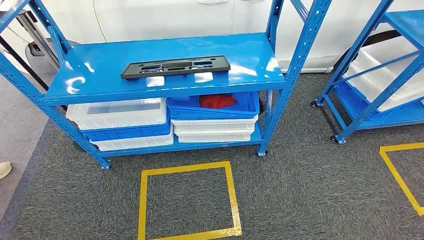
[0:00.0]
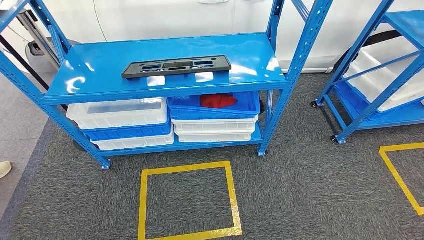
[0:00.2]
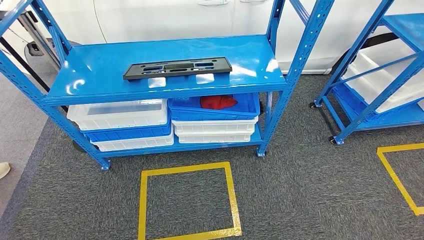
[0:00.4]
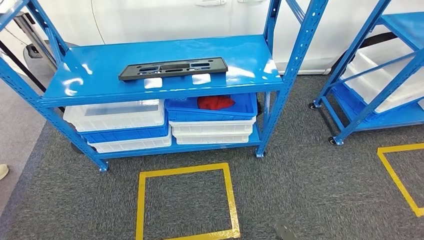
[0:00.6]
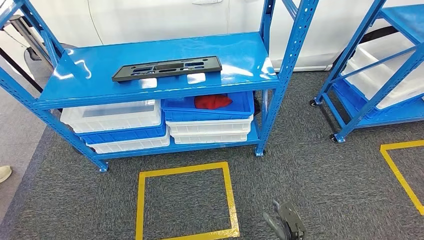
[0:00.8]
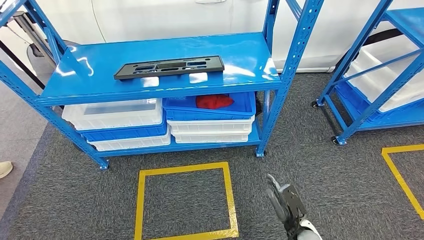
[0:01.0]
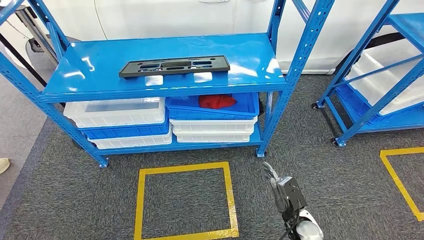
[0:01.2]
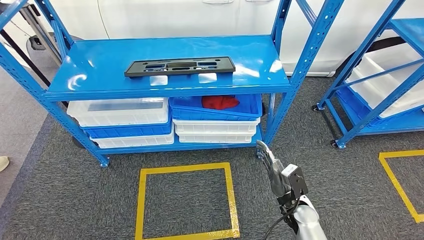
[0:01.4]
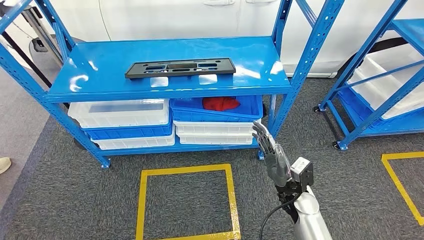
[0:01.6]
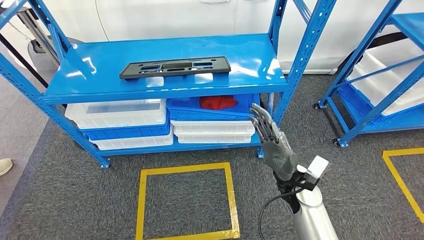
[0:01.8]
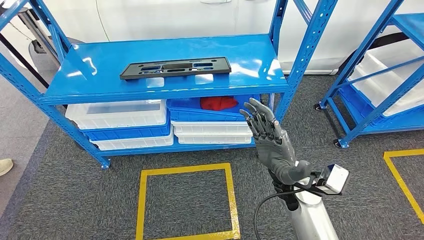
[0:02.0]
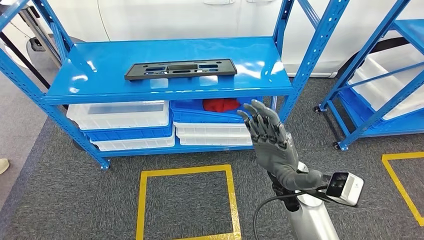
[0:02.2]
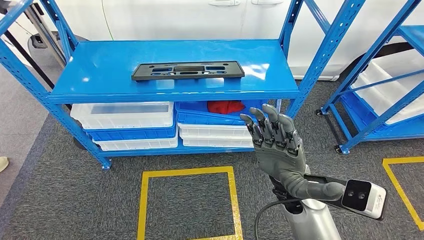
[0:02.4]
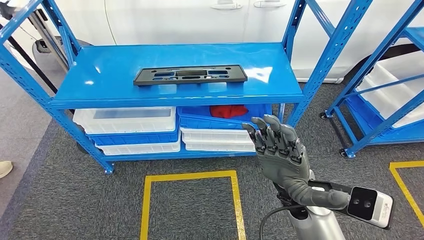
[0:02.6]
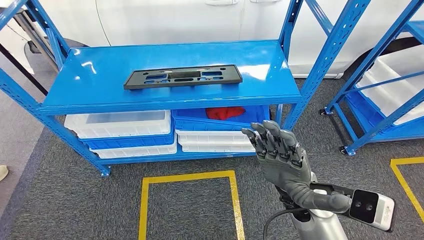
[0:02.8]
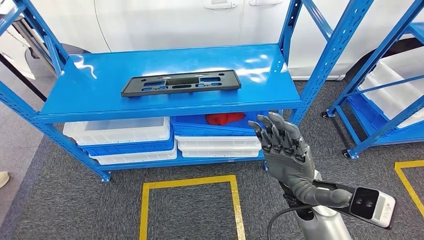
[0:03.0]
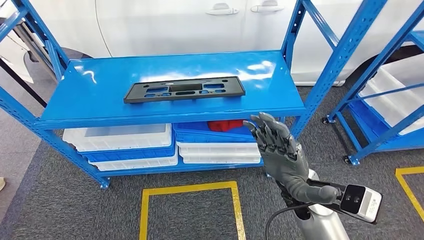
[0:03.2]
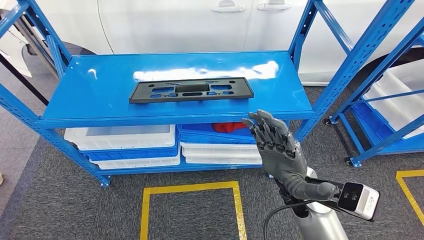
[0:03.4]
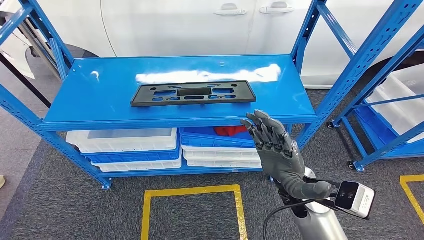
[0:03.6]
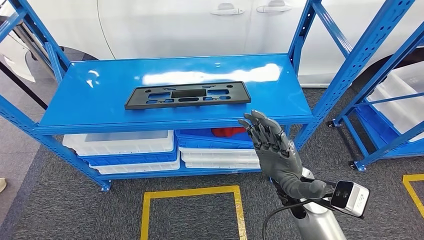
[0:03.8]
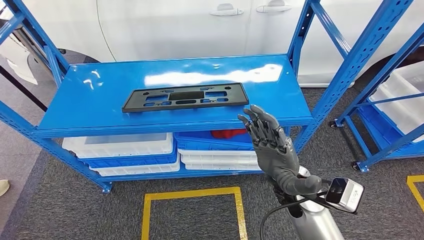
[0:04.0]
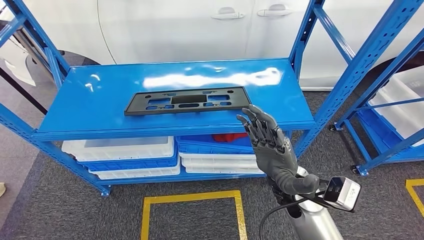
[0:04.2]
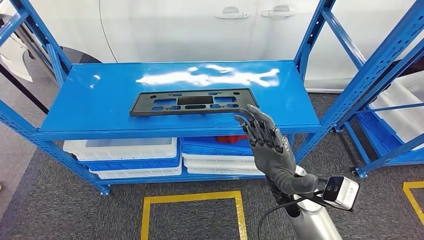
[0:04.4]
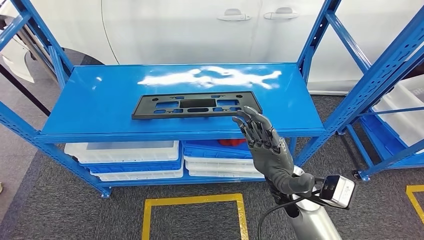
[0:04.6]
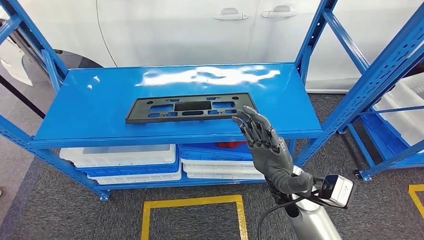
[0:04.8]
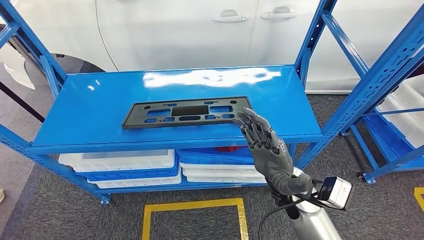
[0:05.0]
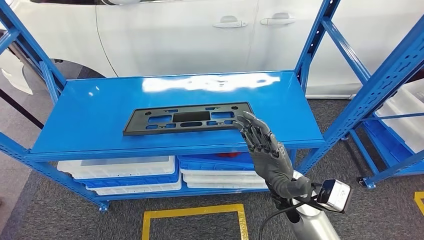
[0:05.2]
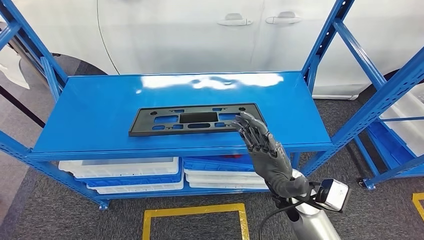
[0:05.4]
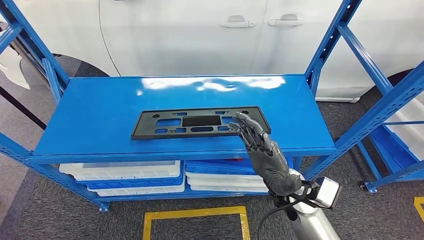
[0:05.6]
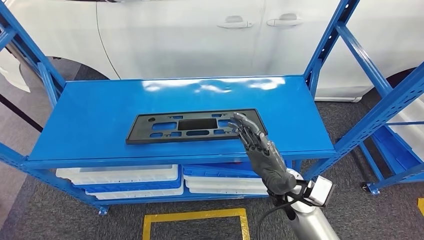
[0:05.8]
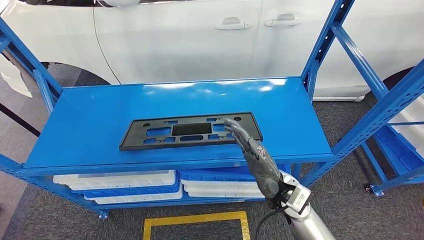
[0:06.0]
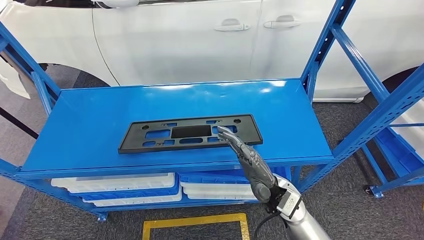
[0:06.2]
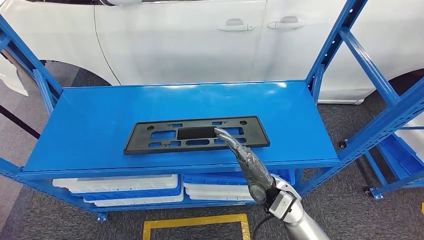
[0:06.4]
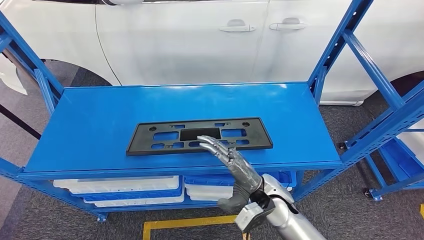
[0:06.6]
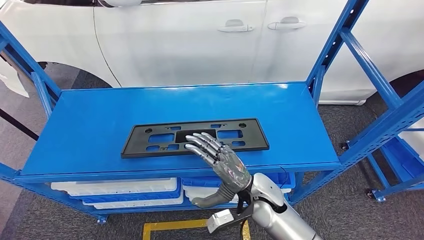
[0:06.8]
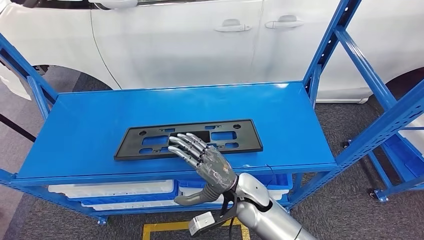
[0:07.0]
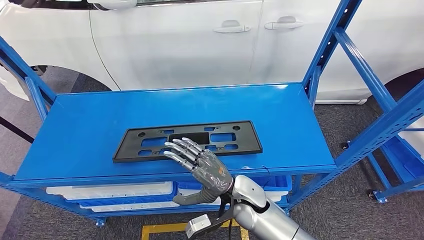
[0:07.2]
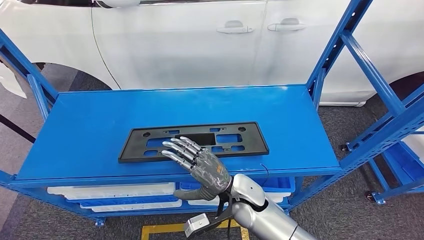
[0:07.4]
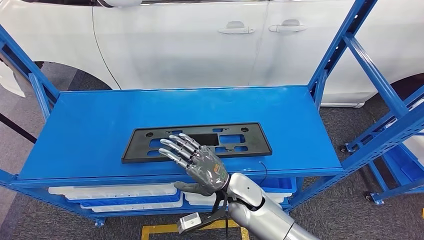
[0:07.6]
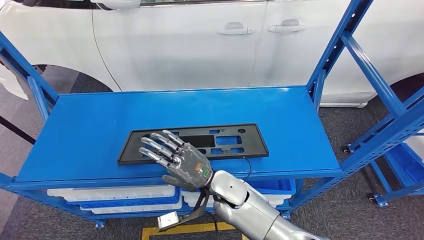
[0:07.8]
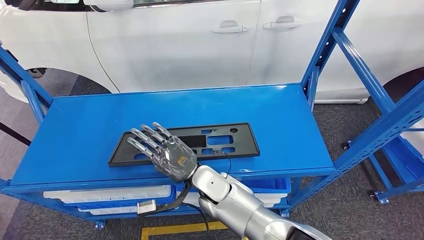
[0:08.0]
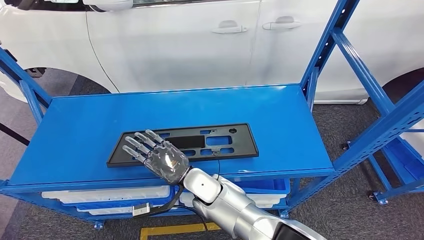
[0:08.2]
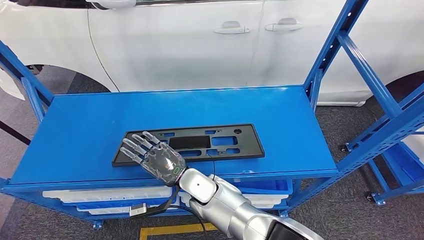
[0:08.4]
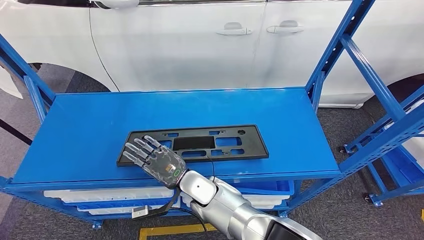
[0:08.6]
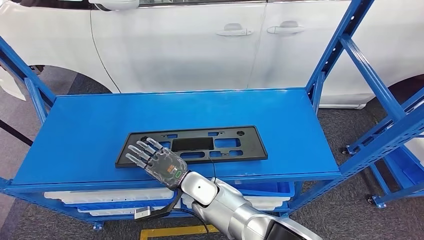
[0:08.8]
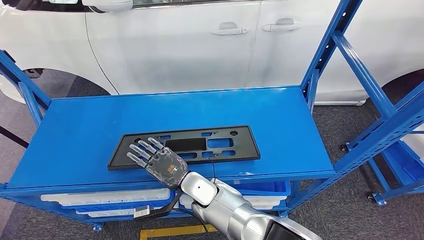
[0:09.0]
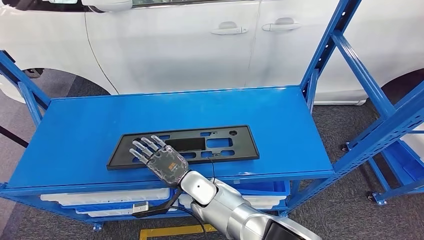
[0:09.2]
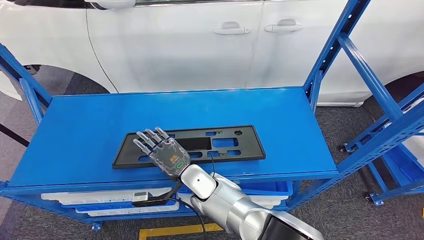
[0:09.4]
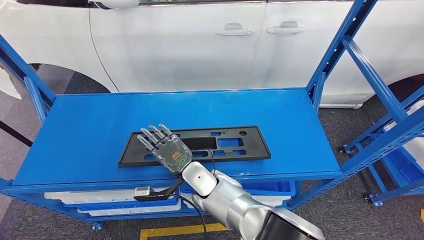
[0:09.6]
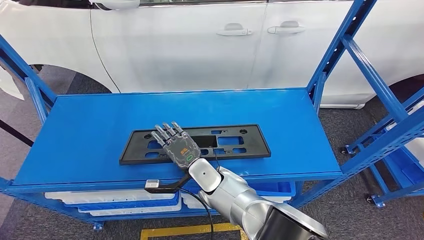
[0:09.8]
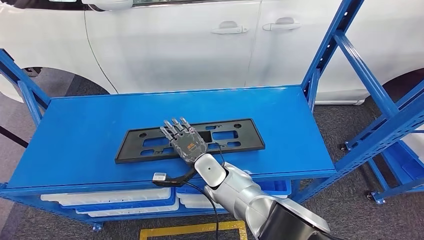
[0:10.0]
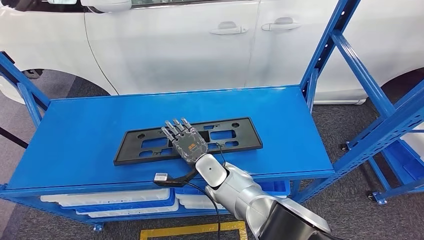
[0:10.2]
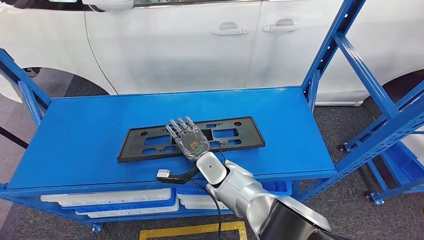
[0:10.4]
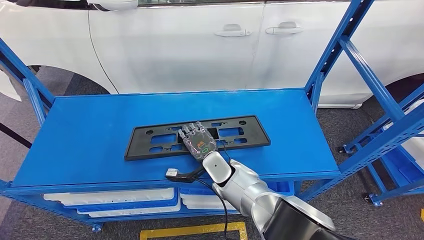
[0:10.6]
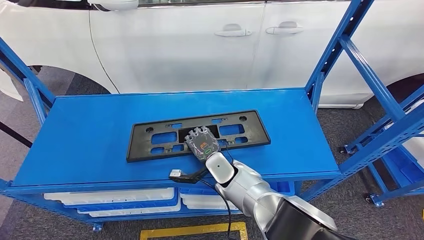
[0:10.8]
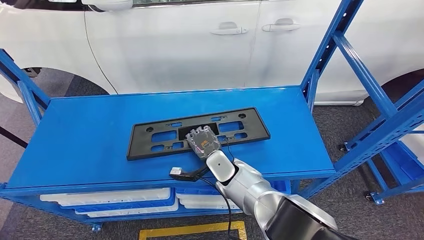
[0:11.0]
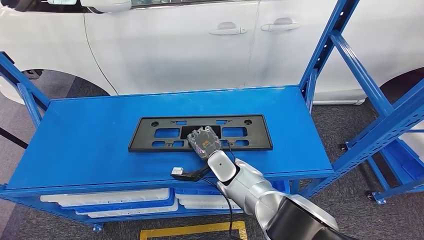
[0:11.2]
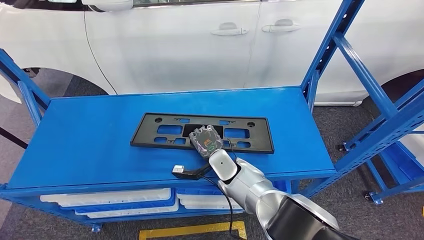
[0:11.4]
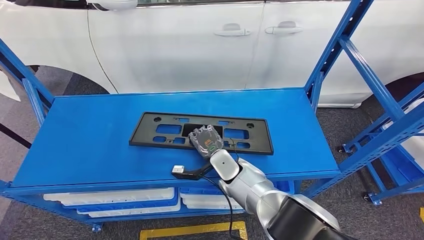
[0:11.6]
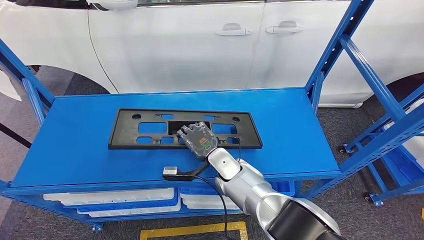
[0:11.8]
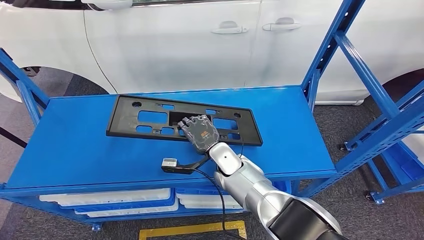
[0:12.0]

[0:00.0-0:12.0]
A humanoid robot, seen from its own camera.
0:09.0 to 0:10.4: The right hand changes place by approximately 5 cm.
0:10.4 to 0:12.0: There are only small adjustments of the hands.

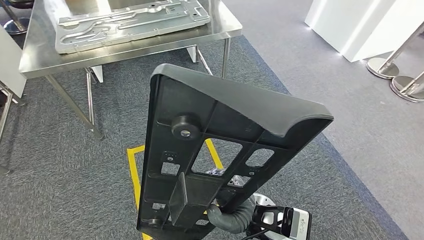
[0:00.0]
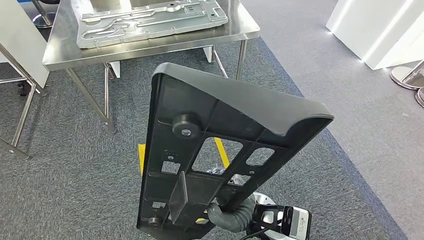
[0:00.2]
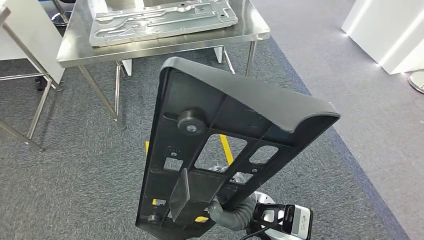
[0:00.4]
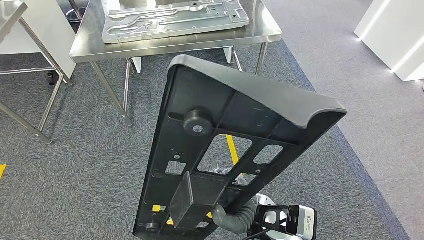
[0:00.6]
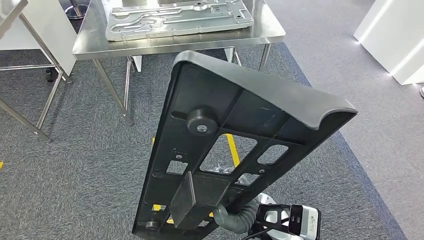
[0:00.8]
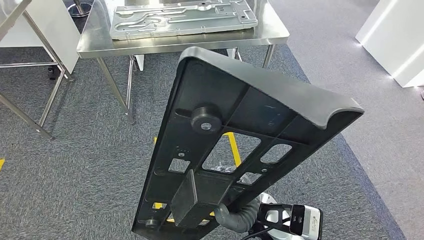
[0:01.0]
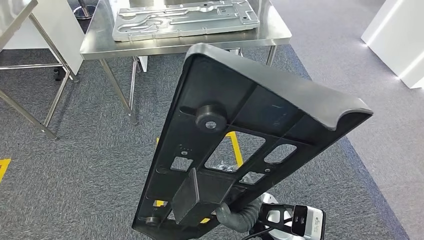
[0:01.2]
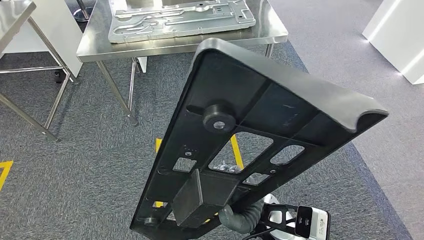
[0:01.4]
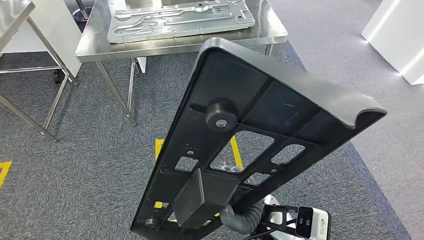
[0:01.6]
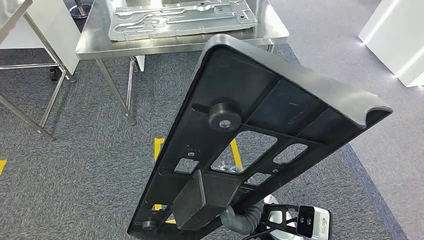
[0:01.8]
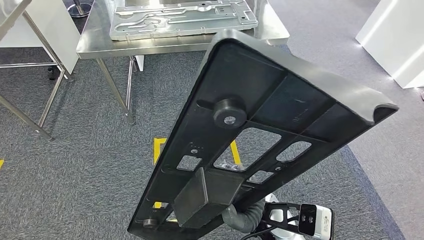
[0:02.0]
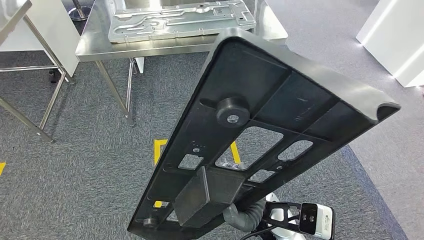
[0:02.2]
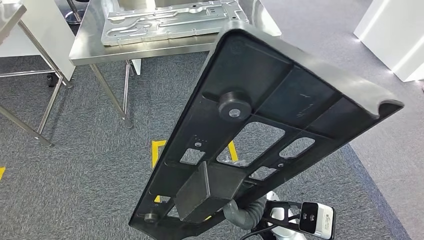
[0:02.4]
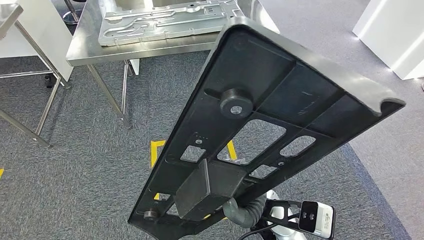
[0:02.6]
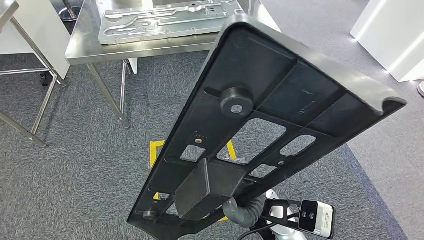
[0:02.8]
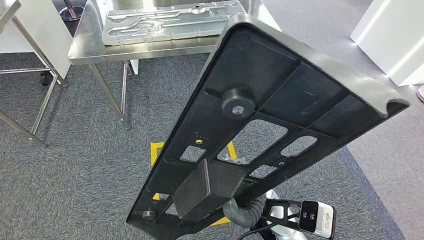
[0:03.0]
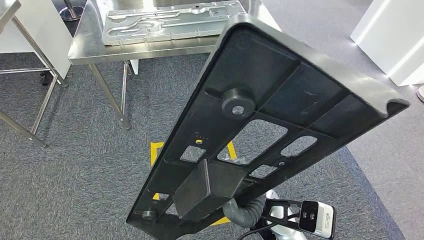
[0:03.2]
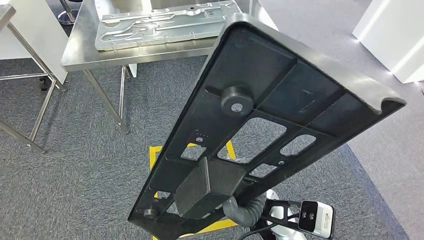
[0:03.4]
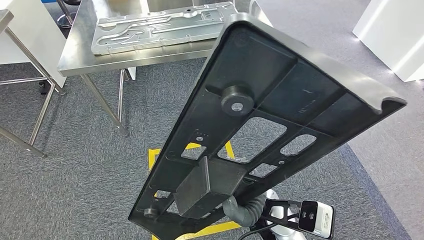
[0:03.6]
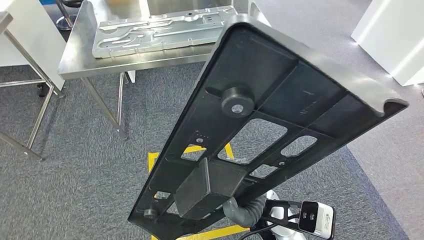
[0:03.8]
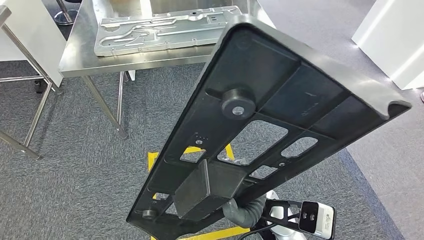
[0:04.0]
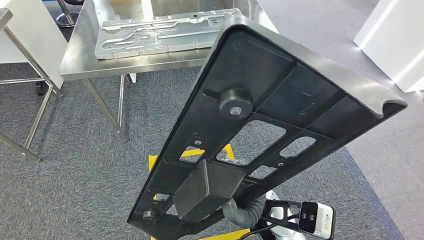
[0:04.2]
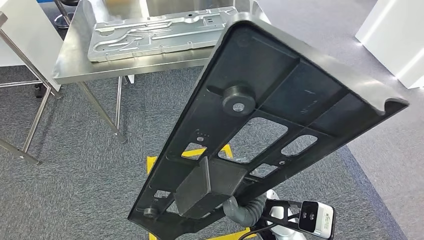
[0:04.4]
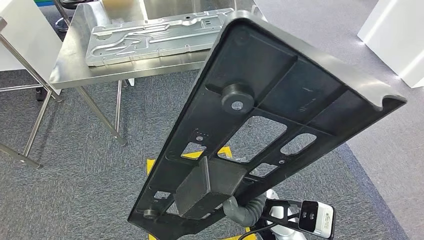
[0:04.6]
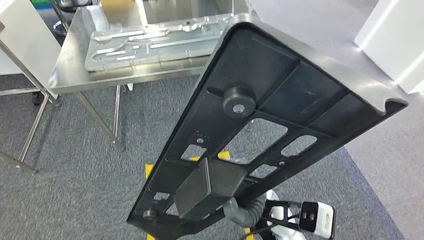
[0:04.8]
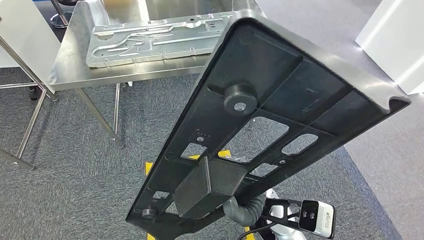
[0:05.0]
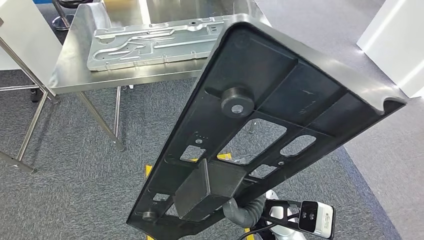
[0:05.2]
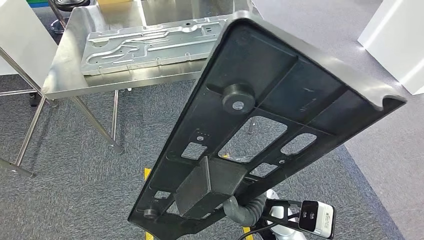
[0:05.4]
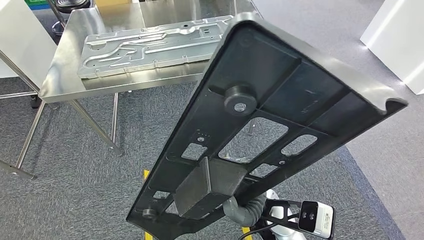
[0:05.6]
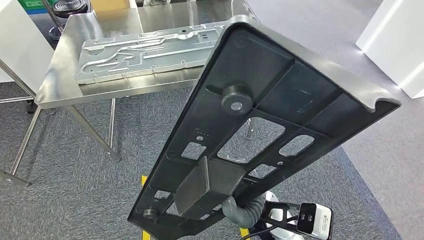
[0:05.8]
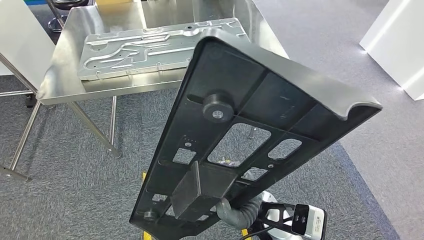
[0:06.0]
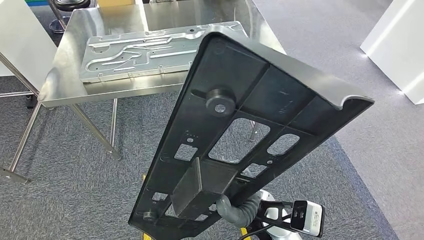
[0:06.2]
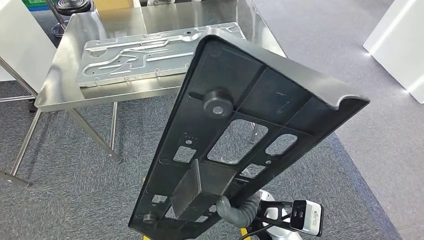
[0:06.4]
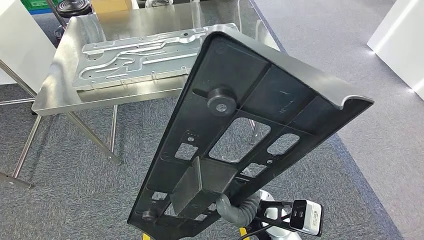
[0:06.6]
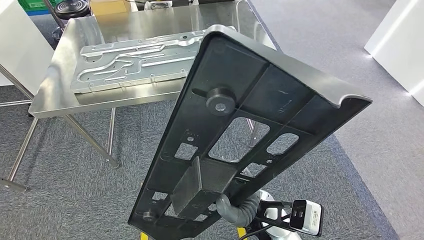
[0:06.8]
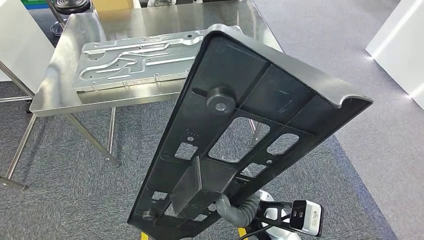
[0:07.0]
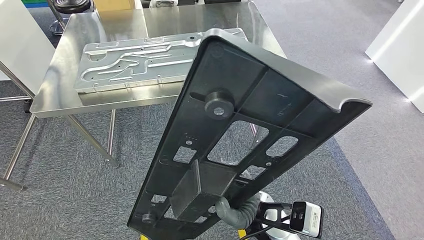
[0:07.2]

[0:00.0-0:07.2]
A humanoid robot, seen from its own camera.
0:02.8 to 0:04.4: Both hands stay about where they are.
